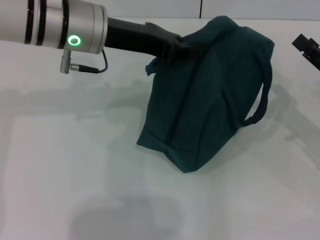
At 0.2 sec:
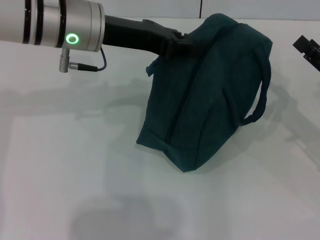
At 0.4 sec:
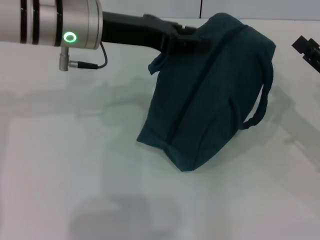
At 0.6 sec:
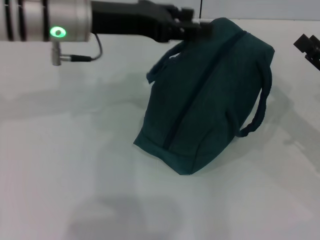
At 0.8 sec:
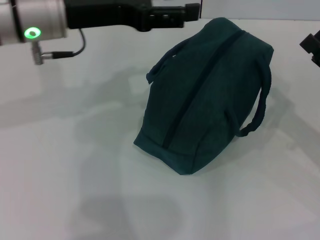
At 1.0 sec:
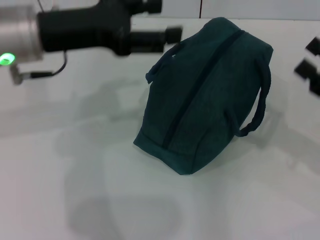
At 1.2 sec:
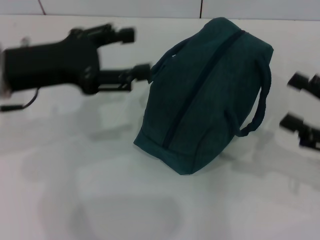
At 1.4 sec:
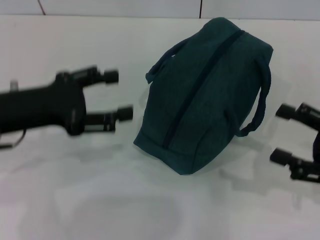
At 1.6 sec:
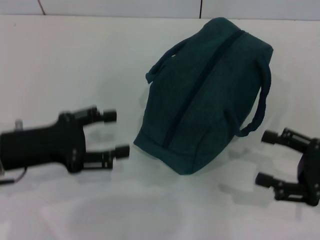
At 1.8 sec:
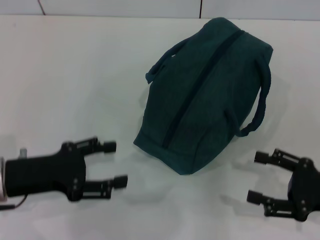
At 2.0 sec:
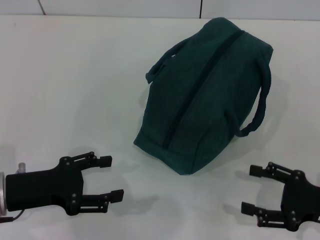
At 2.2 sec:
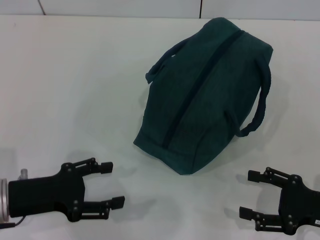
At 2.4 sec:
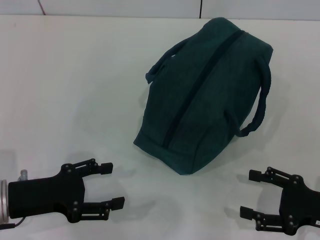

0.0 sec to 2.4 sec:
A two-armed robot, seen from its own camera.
Step, 0.0 sec to 0.6 sec: Hold the lunch bag with your left hand.
0.0 sec to 1.2 sec: The left gripper shifts some 10 cm to the left and backward, and opens; the right gripper moves roughly 5 cm, and opens up.
1.2 sec to 2.4 sec: The right gripper moves downward, approximately 5 cm. The left gripper goes some 15 cm downward and backward.
